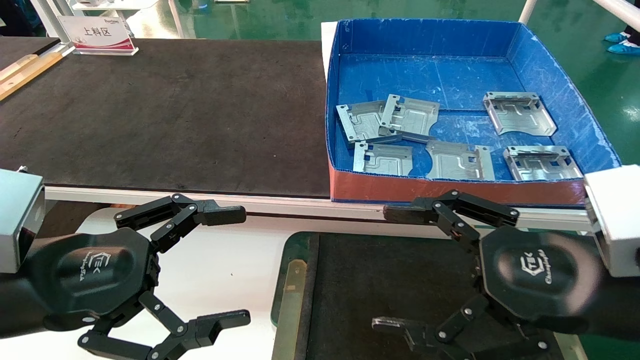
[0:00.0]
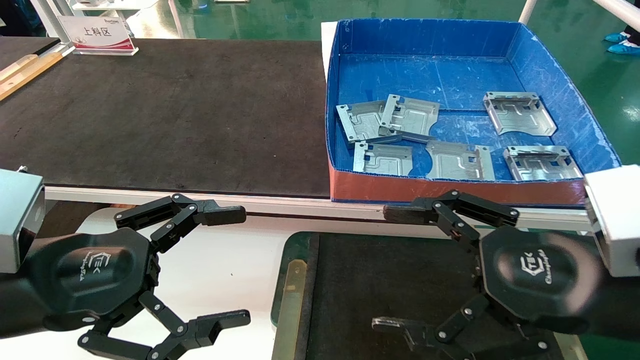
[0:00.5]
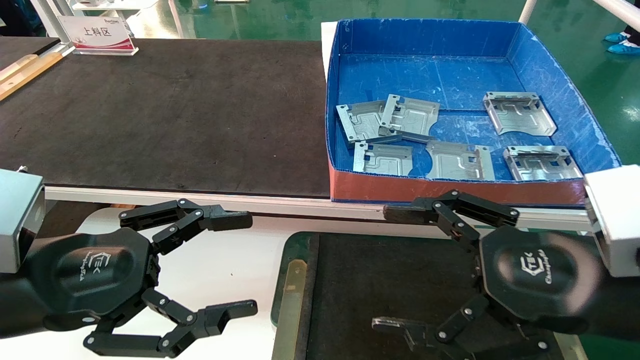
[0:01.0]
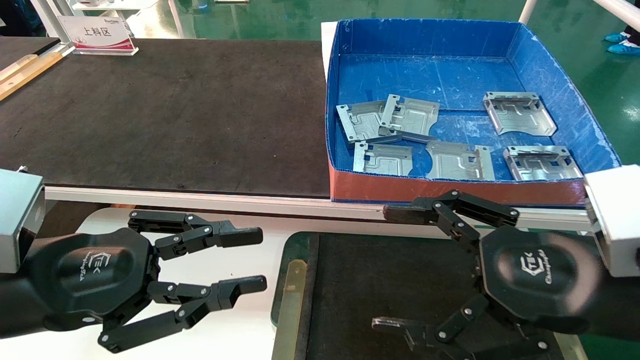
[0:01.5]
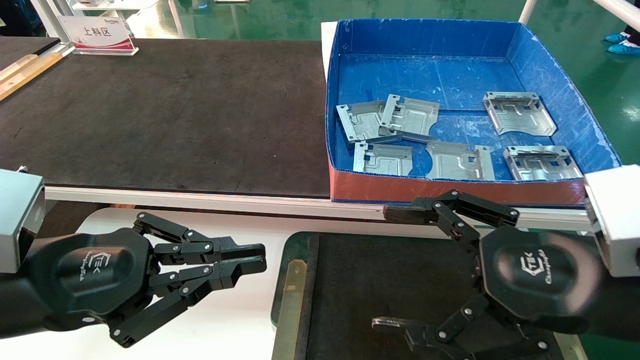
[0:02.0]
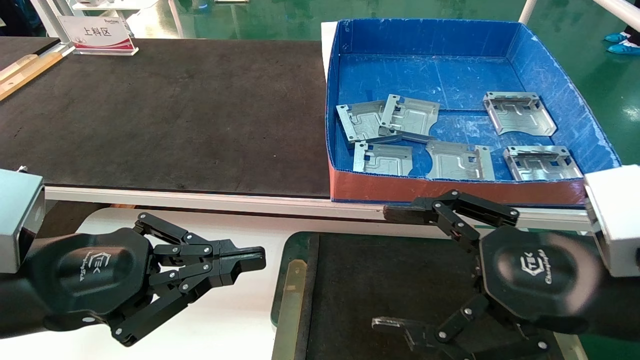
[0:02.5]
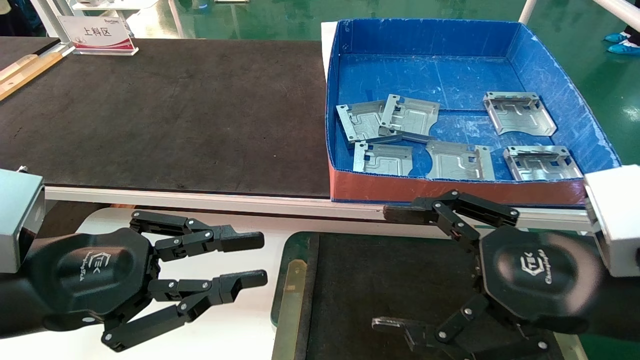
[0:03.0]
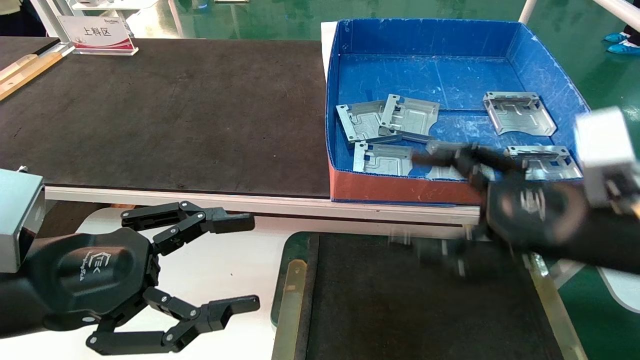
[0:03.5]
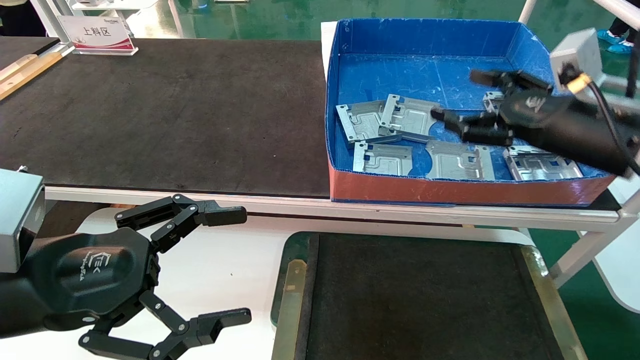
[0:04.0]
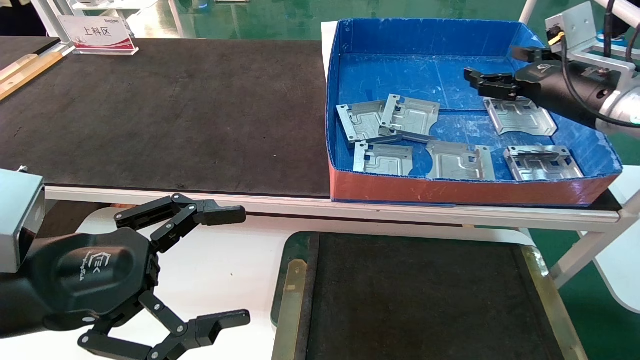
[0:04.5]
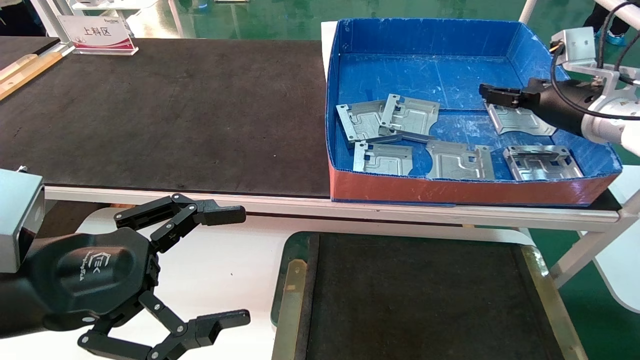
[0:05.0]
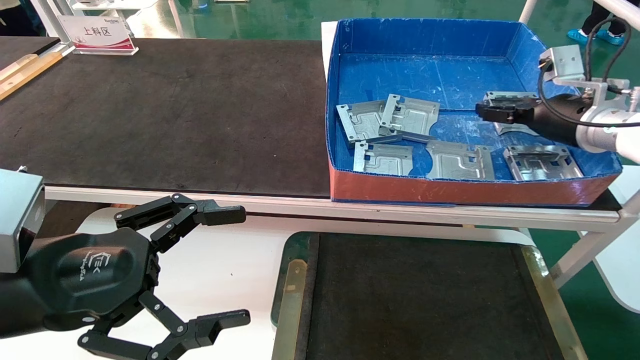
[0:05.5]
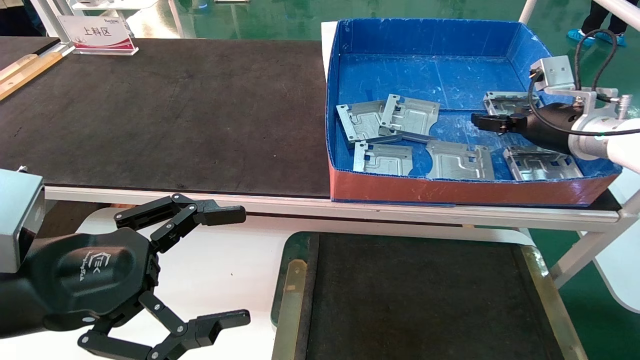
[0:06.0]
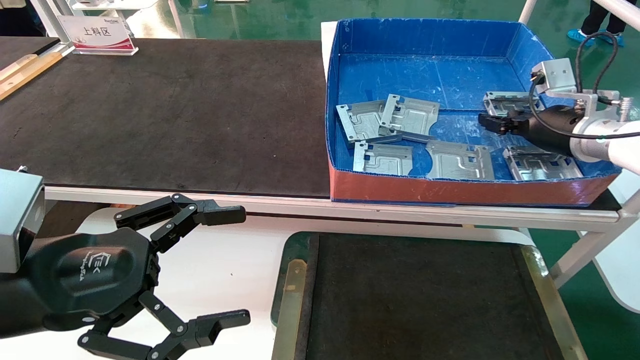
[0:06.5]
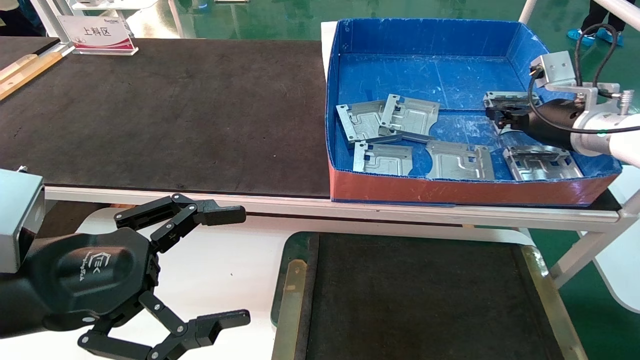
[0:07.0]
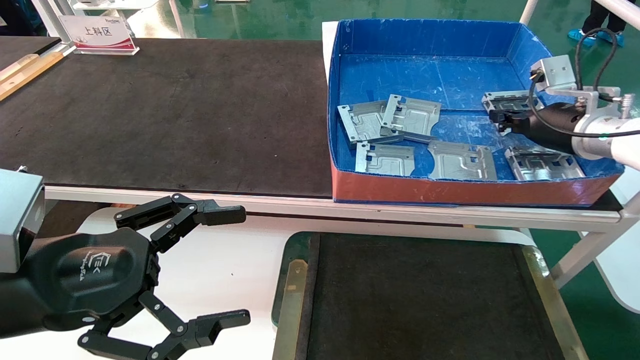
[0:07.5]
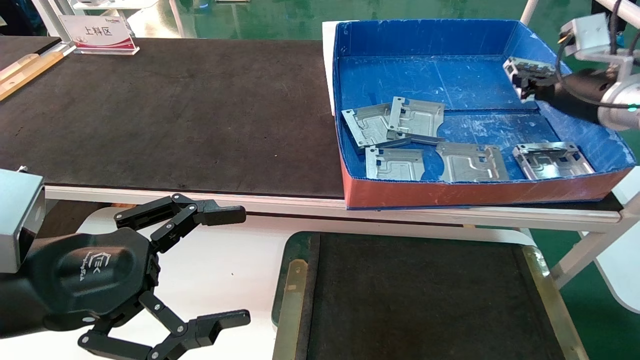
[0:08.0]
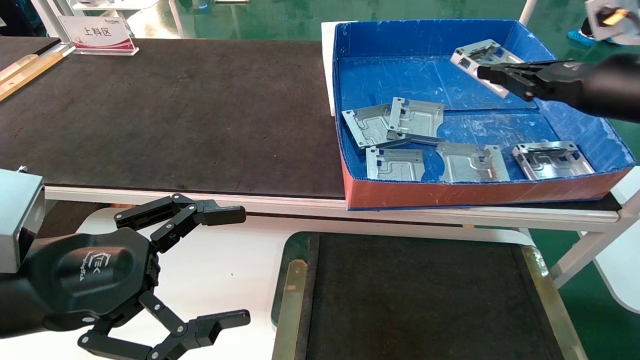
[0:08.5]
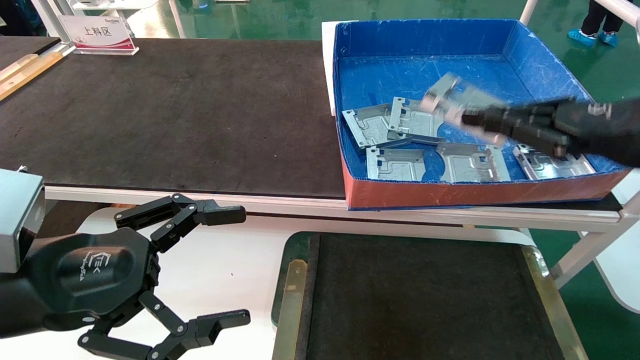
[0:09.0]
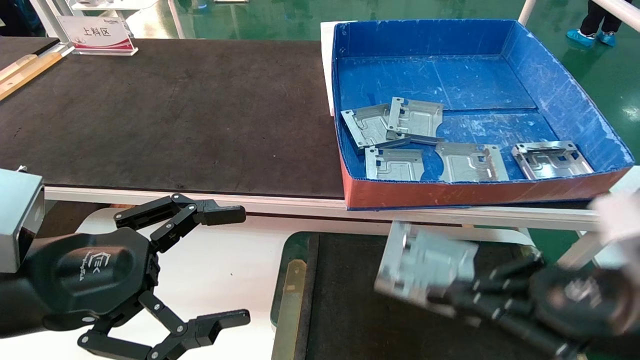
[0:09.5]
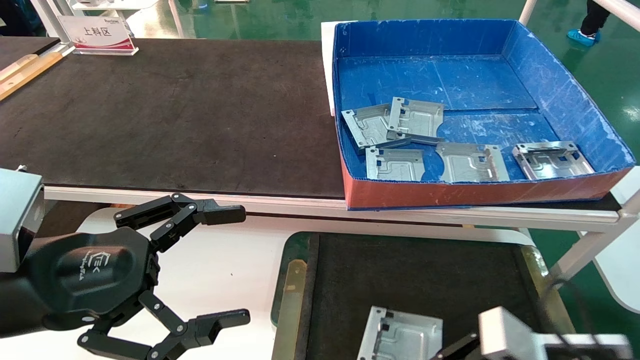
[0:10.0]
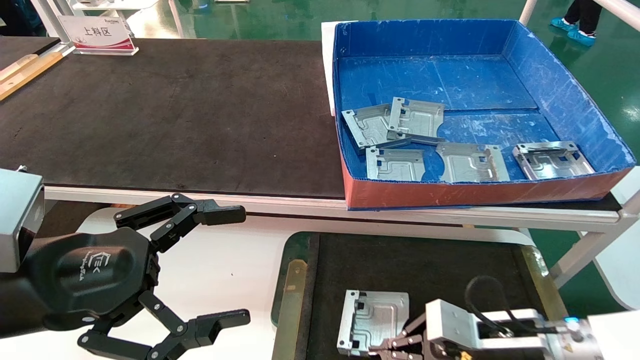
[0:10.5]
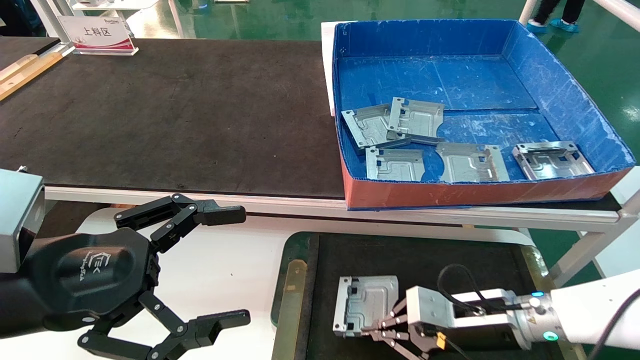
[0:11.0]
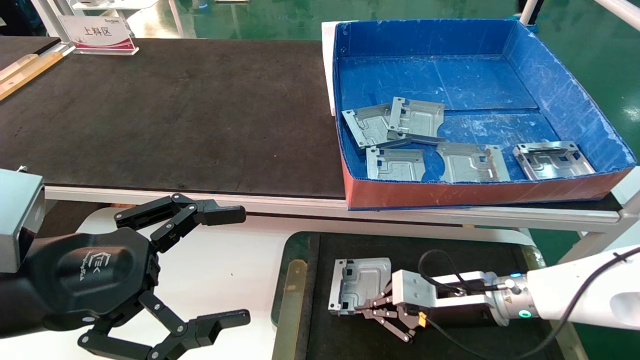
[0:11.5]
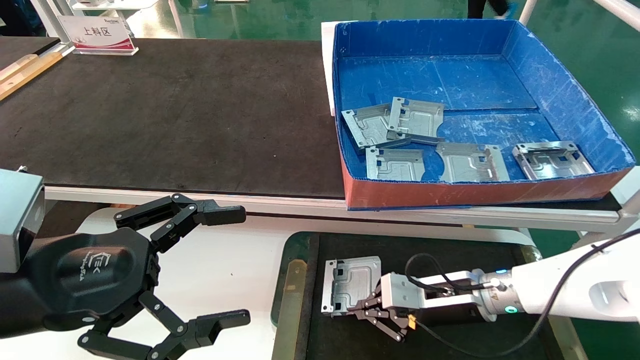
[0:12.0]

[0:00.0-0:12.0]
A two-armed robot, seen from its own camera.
Task of the whole recording: pick up parts and place them into a black container.
Step, 0:04.0 to 0:07.0: Pick up the hard drive bracket from the feeding area.
0:00.0 to 0:02.0: The left gripper closes its fingers.
0:02.0 to 0:04.0: The left gripper opens. Meanwhile the right gripper heads forward, to the right and upward, covering some 20 cm.
0:04.0 to 0:06.0: The right gripper moves forward, approximately 10 cm.
0:06.0 to 0:08.0: The right gripper heads upward, covering about 5 cm, and closes.
0:08.0 to 0:10.0: The right gripper is displaced downward, backward and to the left by some 35 cm.
0:10.0 to 0:12.0: The right gripper is displaced forward and to the left by about 15 cm.

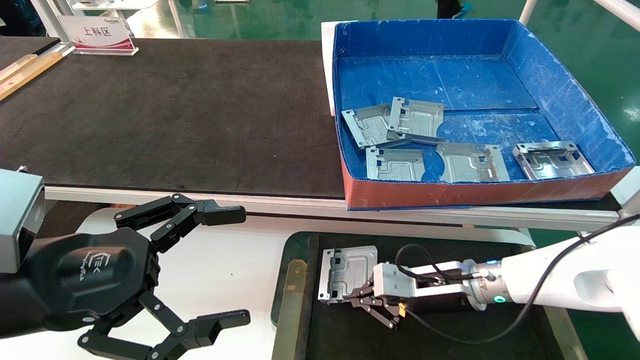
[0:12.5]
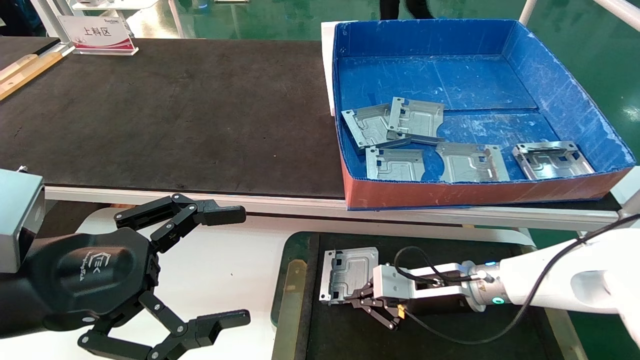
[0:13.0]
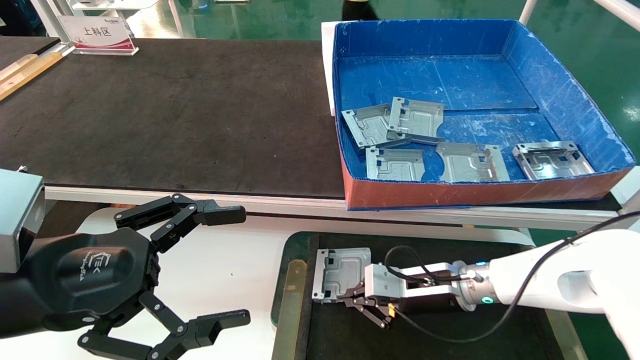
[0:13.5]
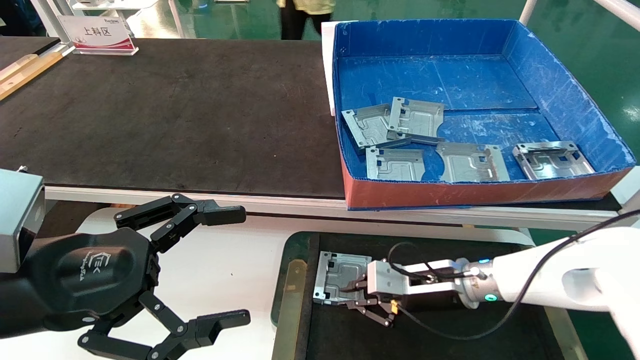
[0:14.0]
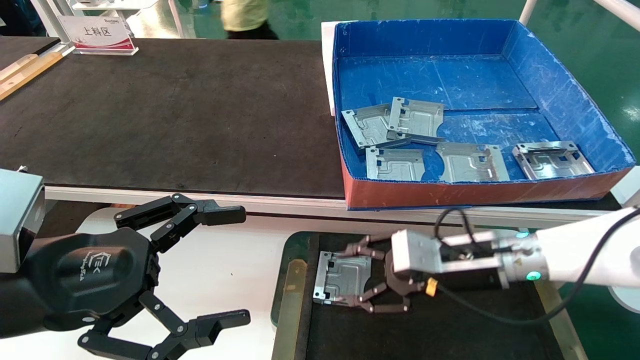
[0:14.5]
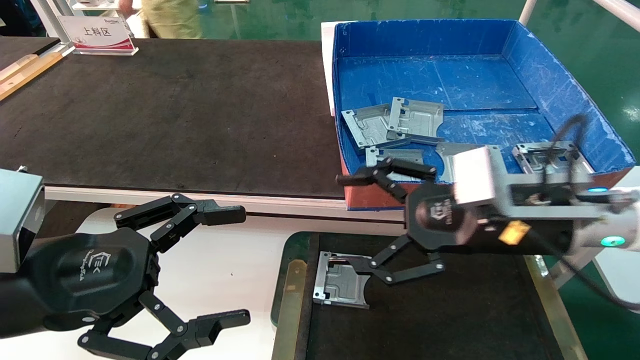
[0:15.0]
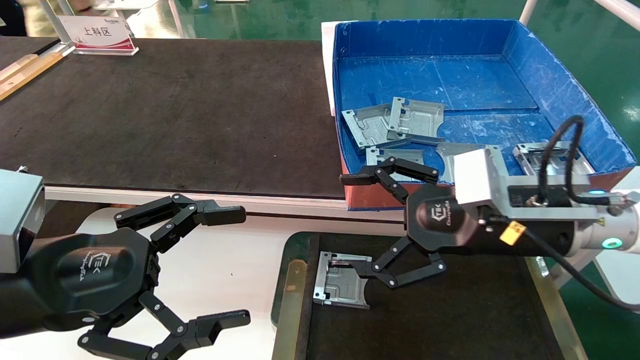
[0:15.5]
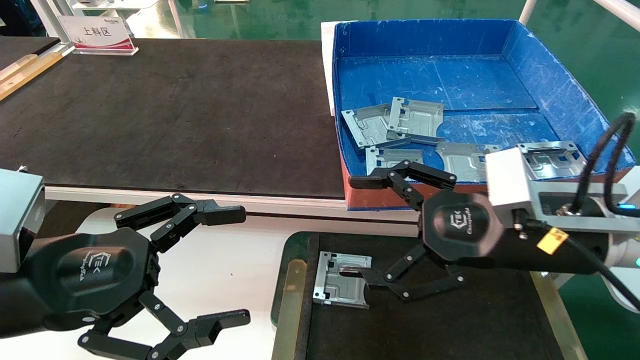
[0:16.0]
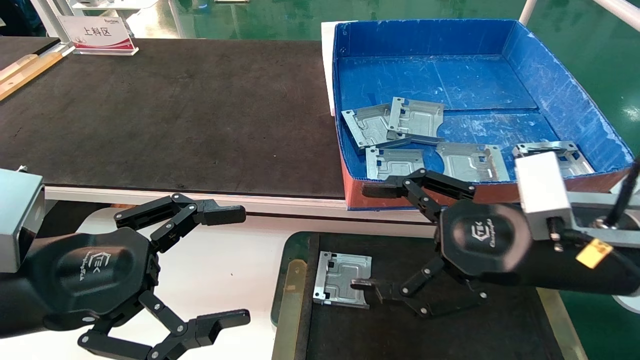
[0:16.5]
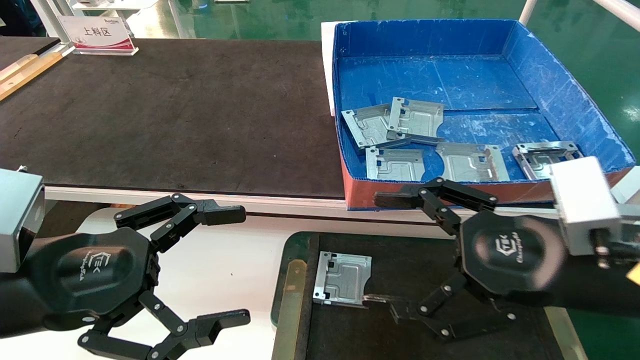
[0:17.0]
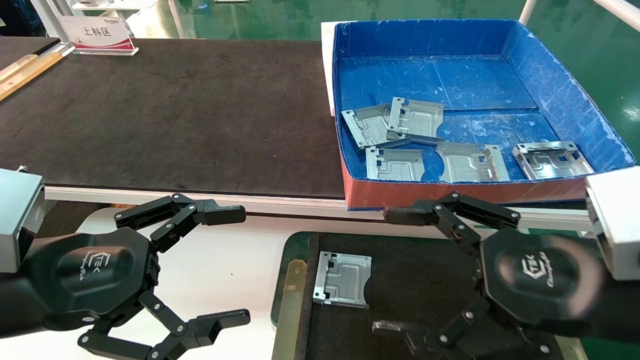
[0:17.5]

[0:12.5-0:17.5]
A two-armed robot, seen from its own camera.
Task of the whole recording: pick up parts and place them into a black container.
0:12.5 to 0:15.0: The right gripper moves upward and backward, roughly 20 cm, and opens up.
0:15.0 to 0:17.5: The right gripper is displaced backward by some 10 cm.
